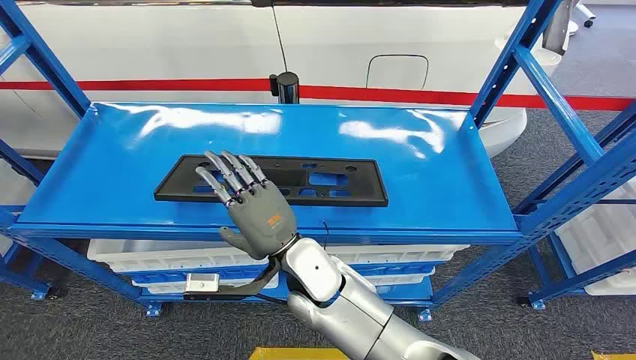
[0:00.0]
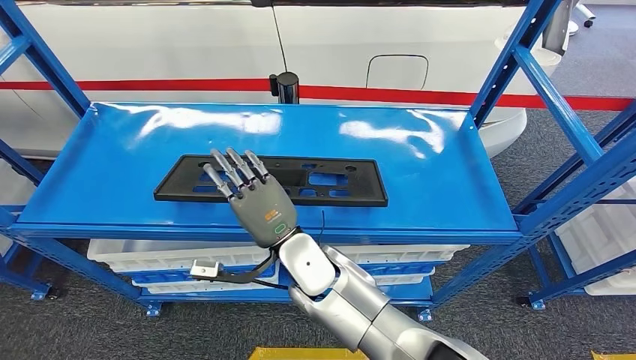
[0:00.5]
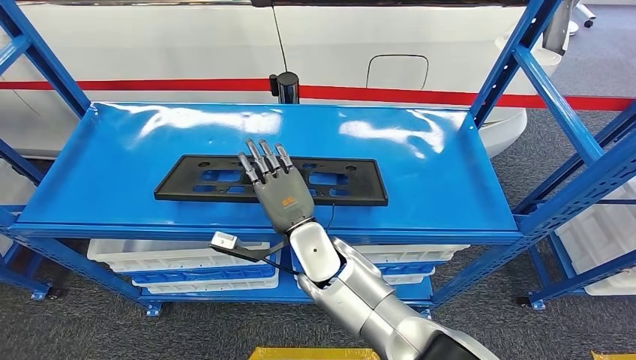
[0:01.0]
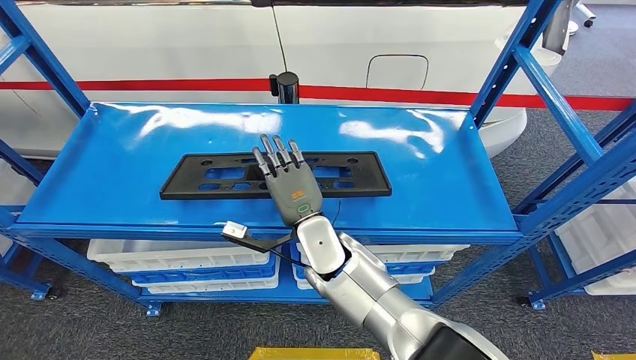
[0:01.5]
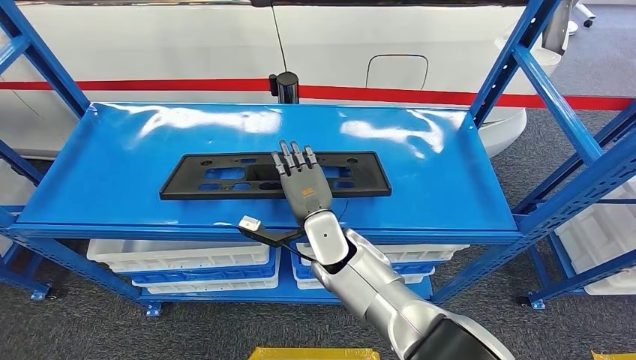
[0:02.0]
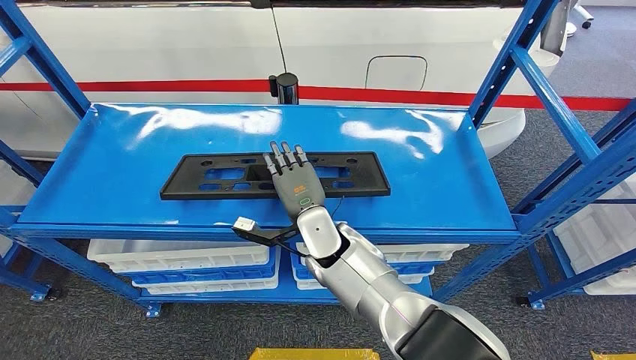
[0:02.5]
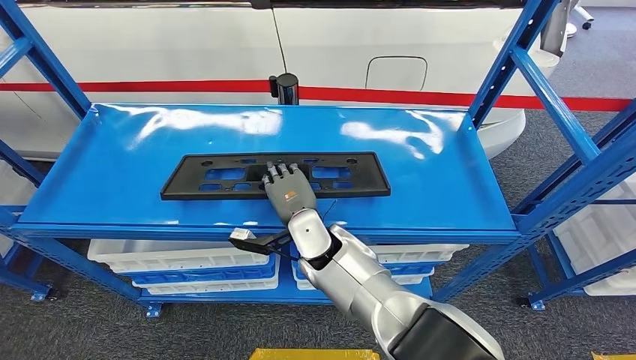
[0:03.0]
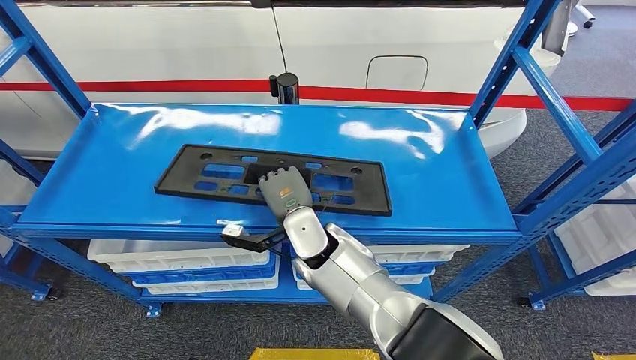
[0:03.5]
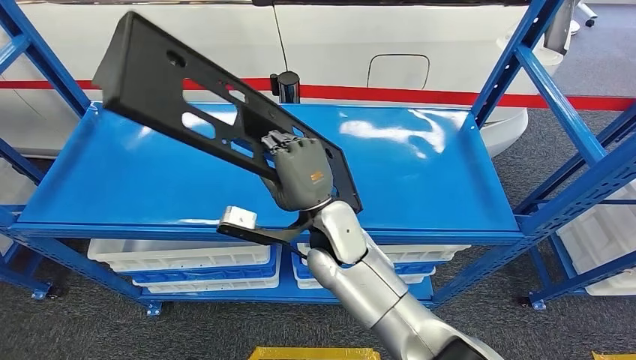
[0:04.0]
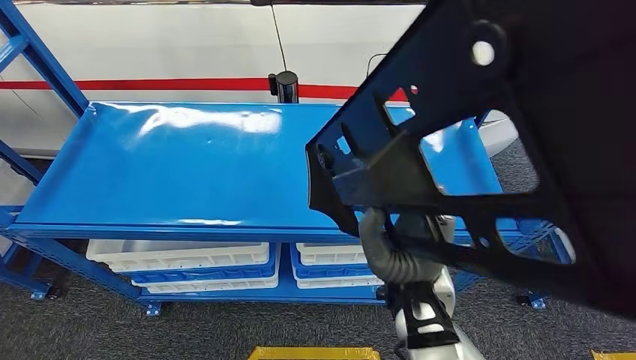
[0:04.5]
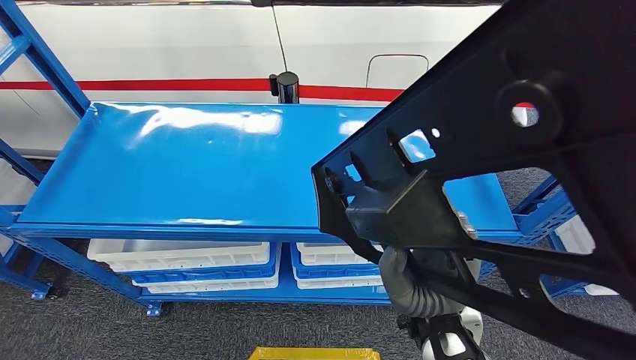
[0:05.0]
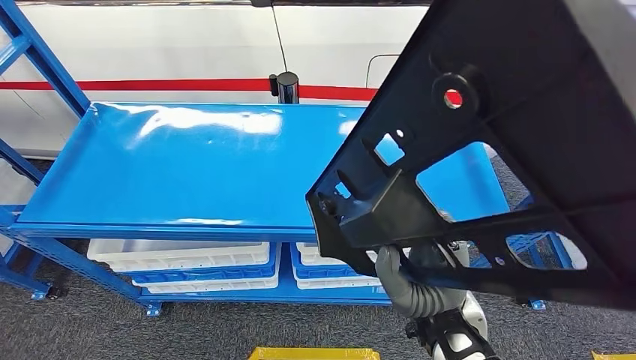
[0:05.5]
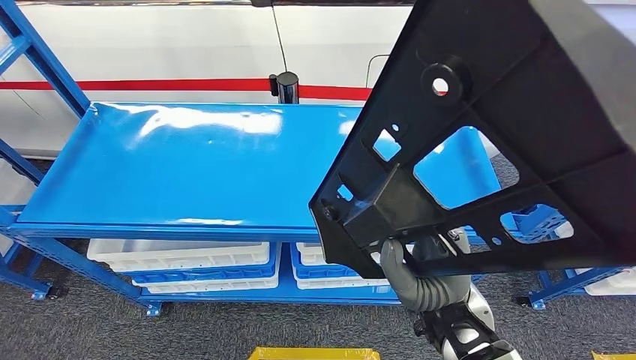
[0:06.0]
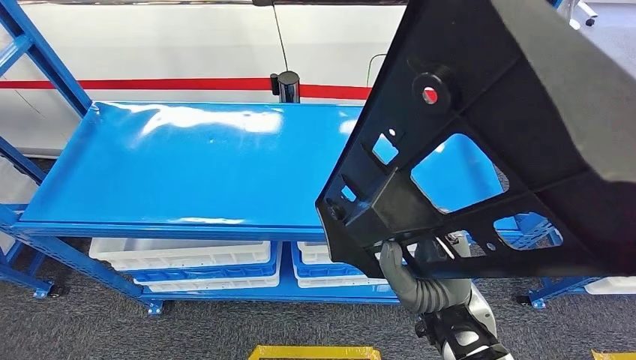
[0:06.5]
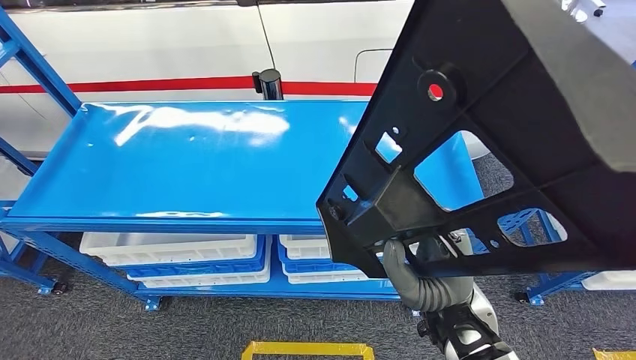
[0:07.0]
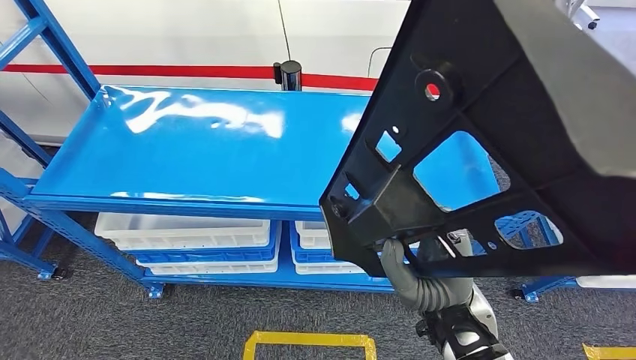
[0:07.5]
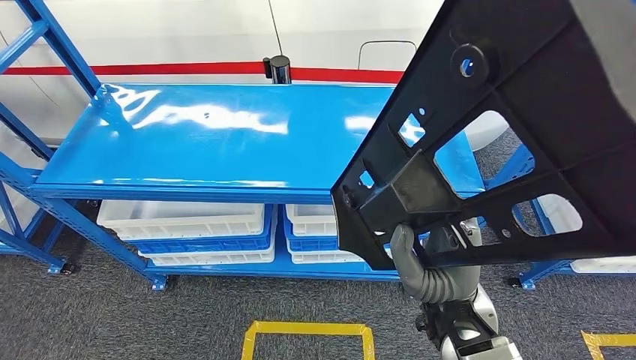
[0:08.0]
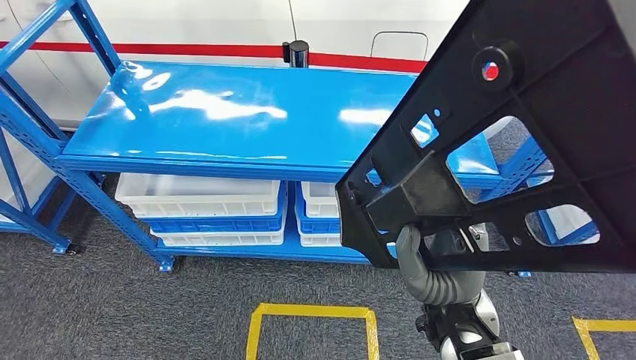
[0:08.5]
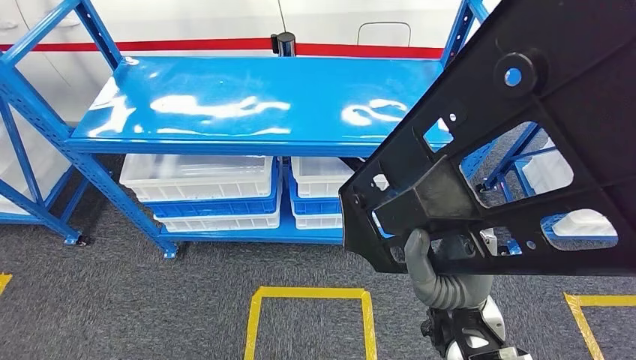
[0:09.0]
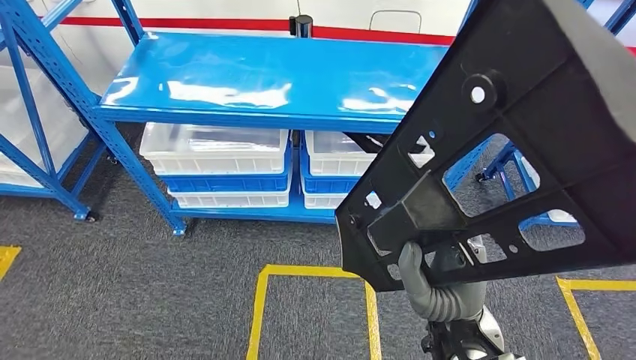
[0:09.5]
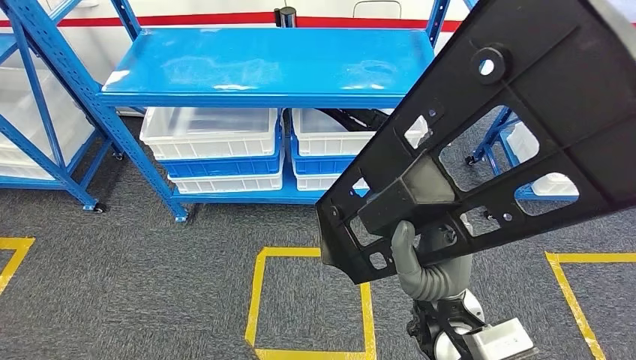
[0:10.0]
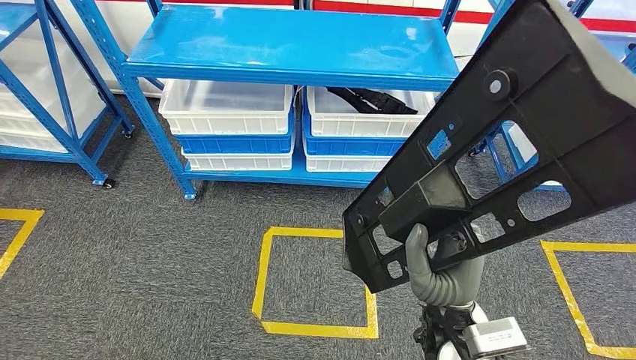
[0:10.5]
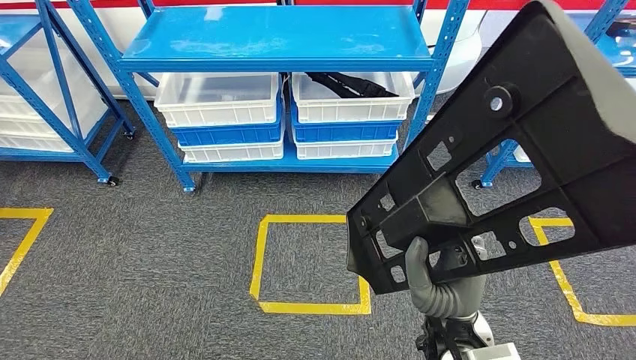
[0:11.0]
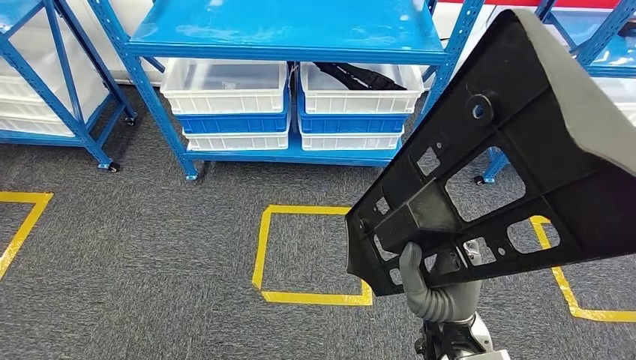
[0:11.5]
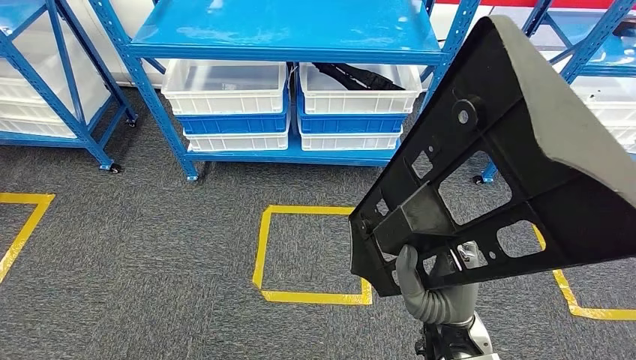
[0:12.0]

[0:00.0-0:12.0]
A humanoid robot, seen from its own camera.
Step, 0:00.0 to 0:08.0: Pick up the large material from the shelf.
0:02.0 to 0:04.0: The right hand goes some 5 cm upward.

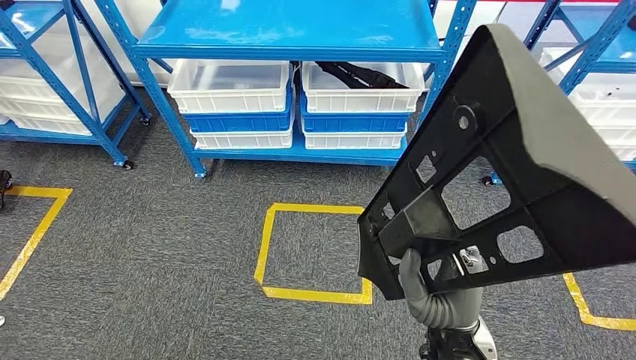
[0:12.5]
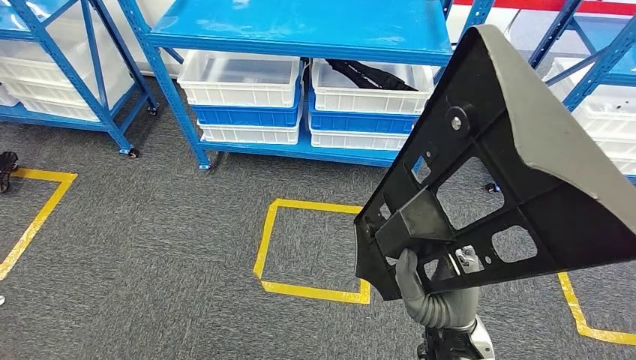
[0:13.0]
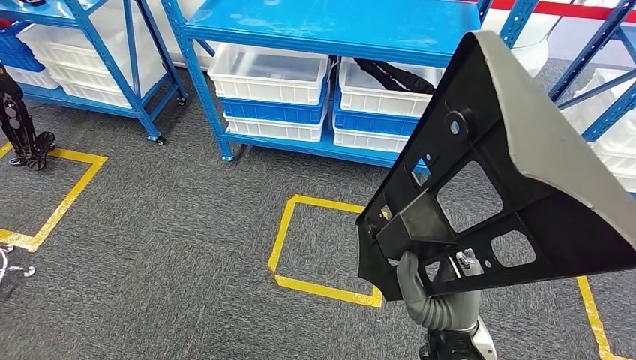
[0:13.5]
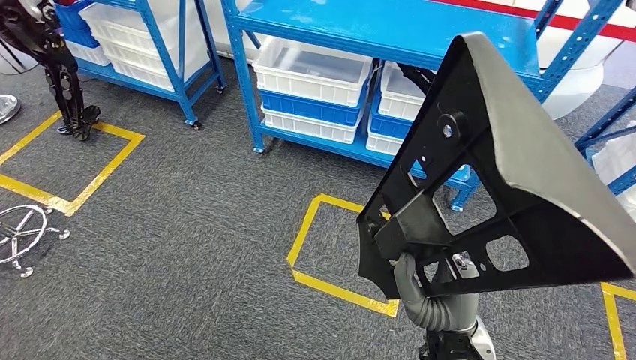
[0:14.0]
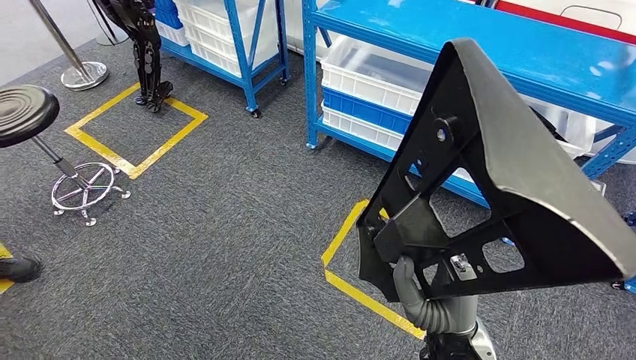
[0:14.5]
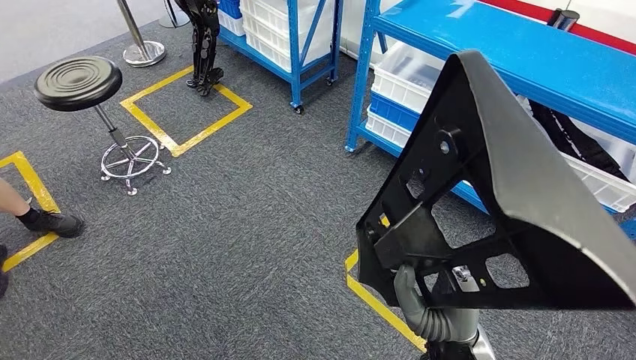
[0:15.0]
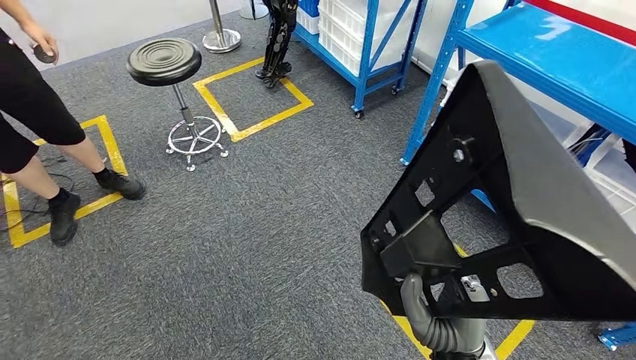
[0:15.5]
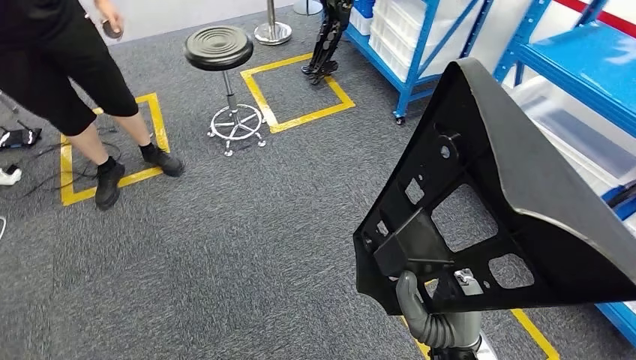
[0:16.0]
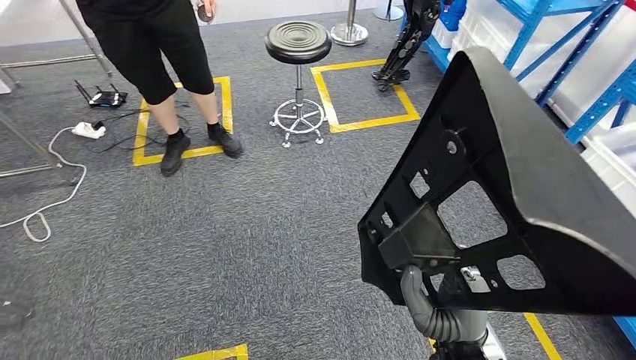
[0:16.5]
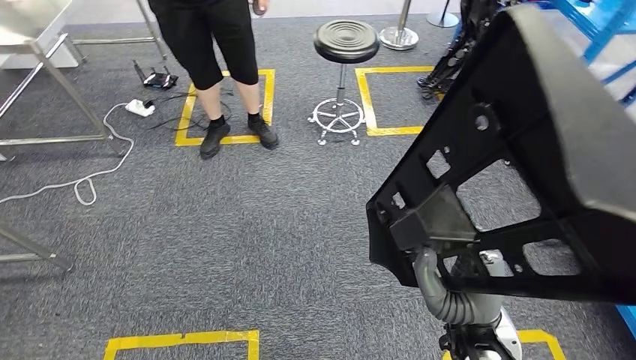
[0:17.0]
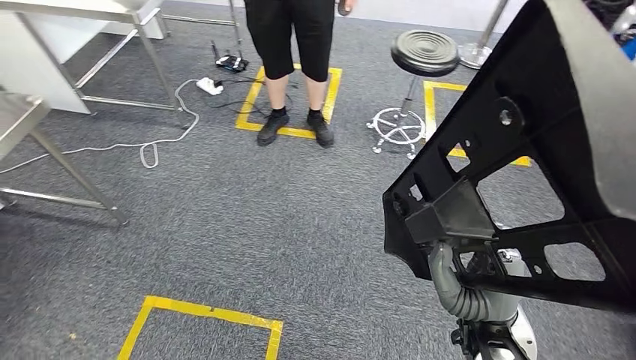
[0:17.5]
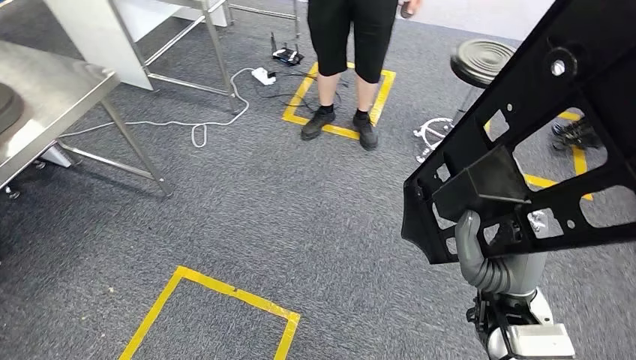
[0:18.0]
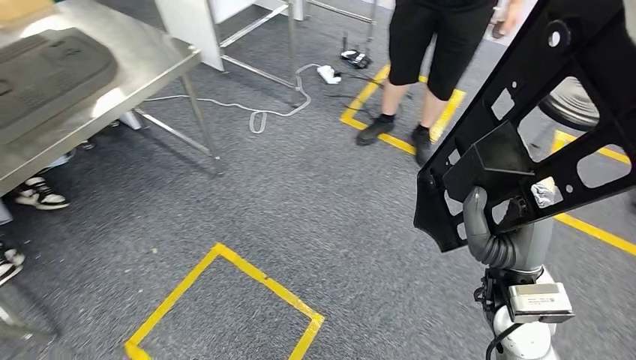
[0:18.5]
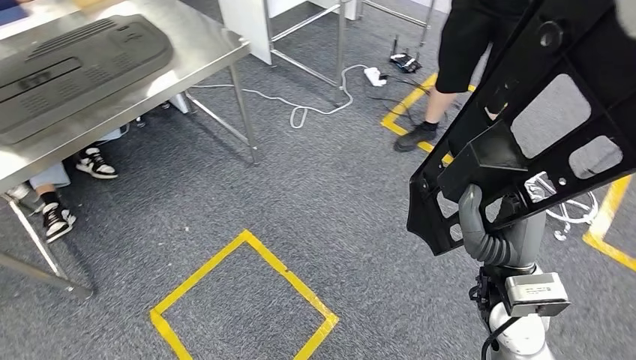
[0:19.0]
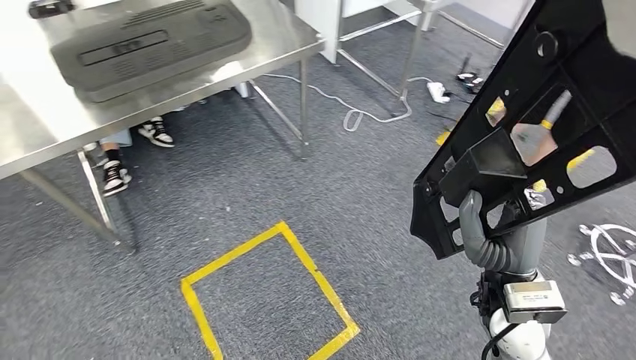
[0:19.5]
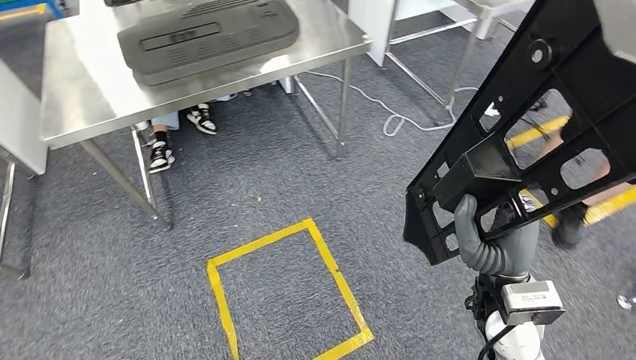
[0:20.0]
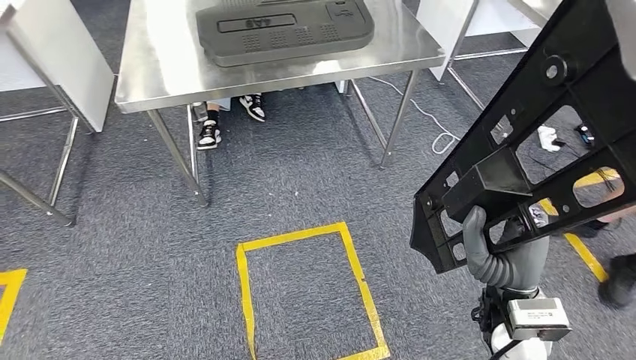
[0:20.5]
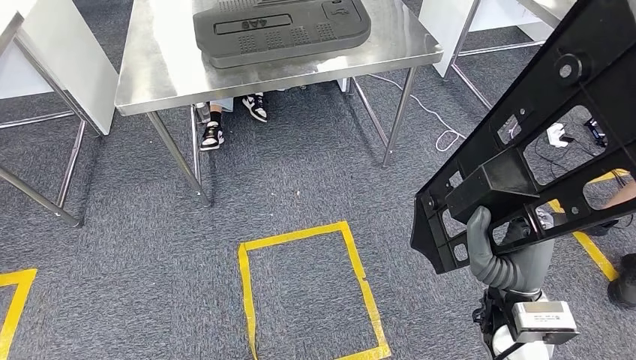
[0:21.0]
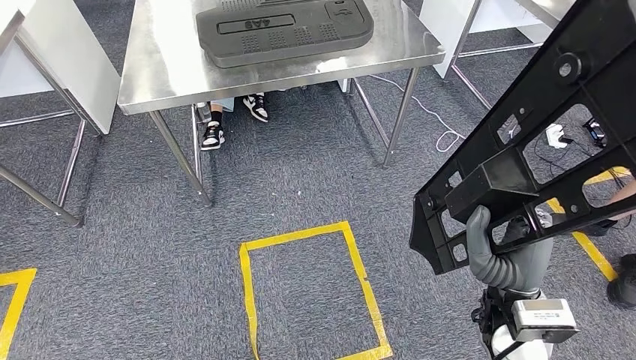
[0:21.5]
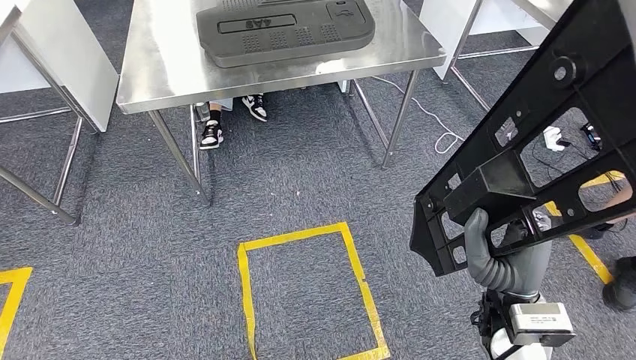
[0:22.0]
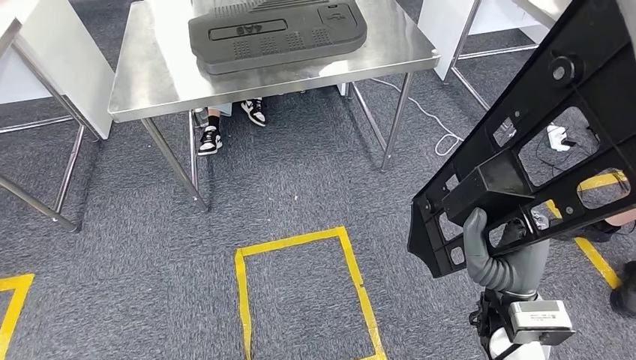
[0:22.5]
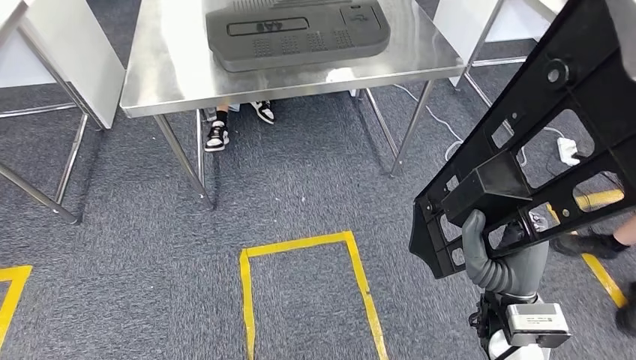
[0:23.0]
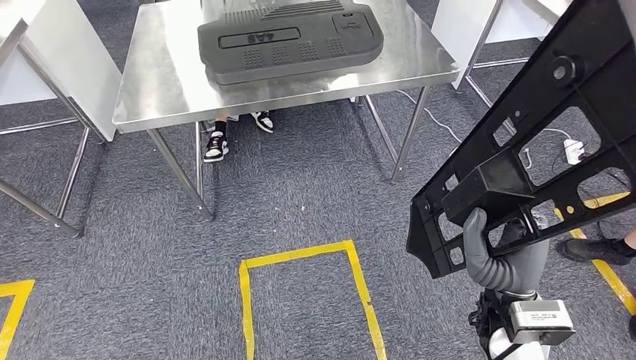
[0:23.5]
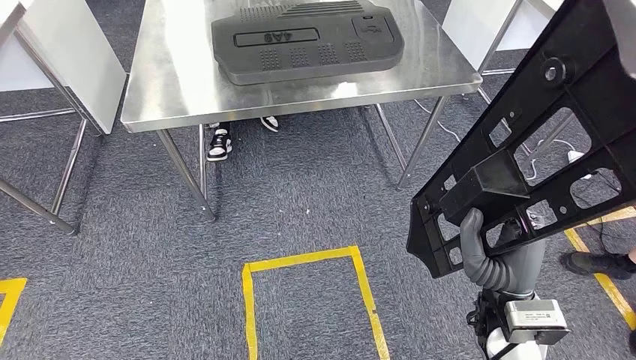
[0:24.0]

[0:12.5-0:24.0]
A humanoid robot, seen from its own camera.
Step, 0:12.5 to 0:23.5: Move the large material to the workbench.
